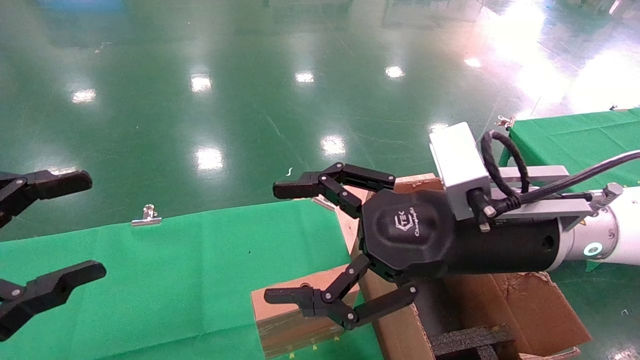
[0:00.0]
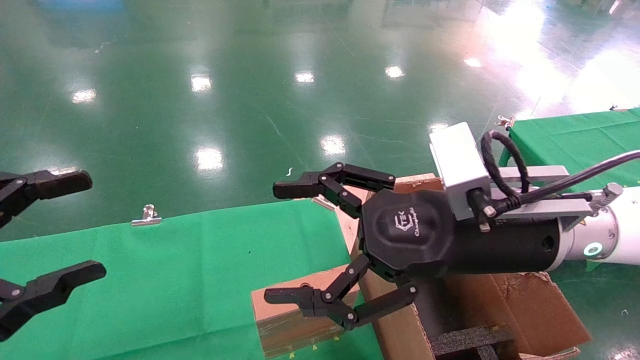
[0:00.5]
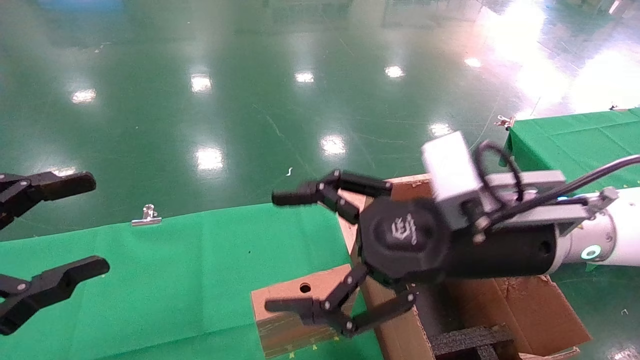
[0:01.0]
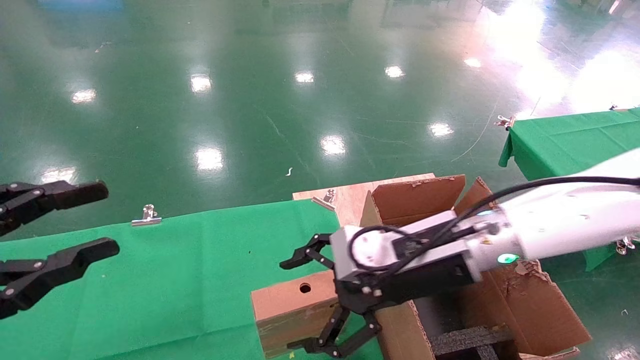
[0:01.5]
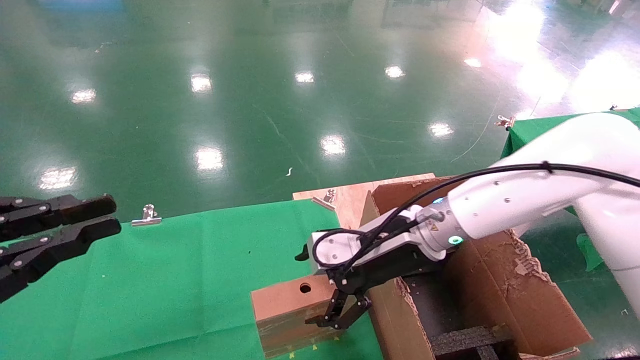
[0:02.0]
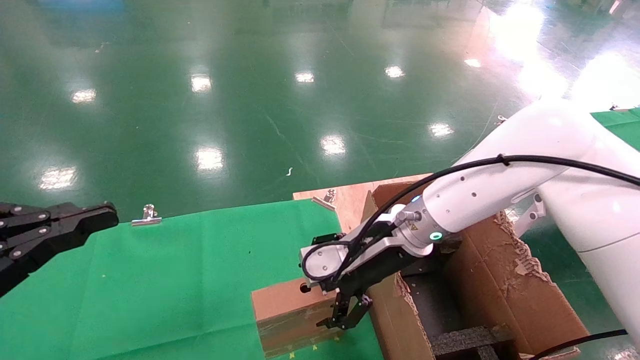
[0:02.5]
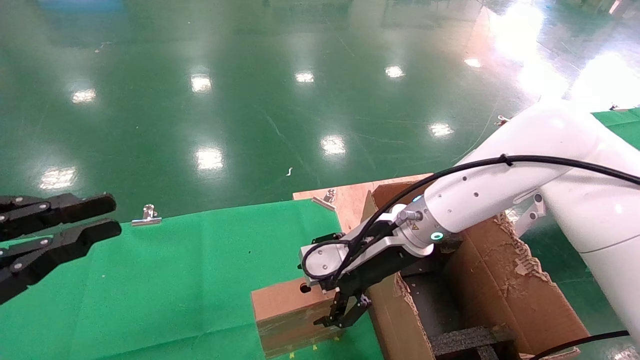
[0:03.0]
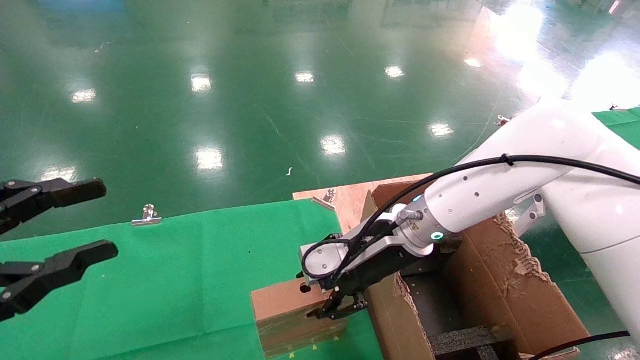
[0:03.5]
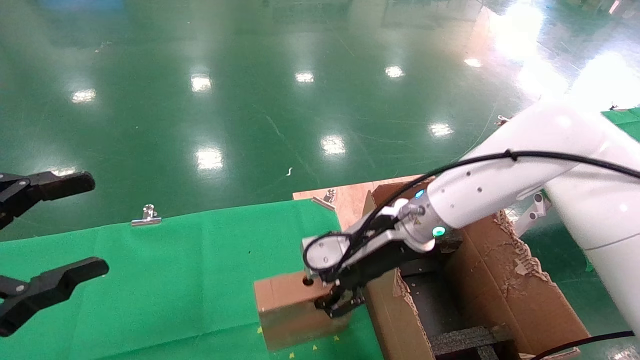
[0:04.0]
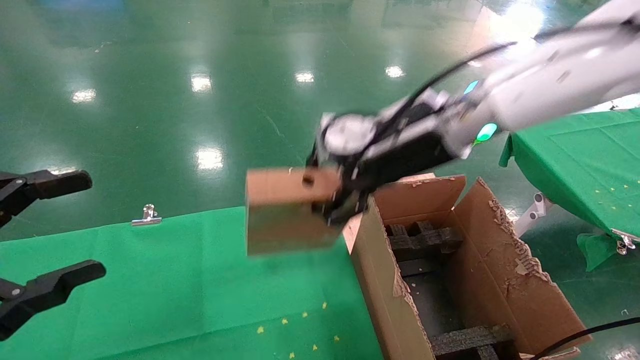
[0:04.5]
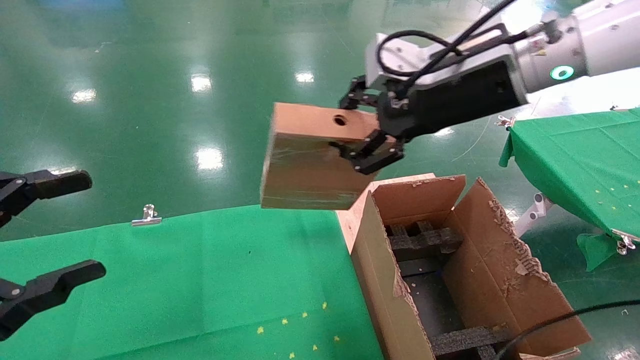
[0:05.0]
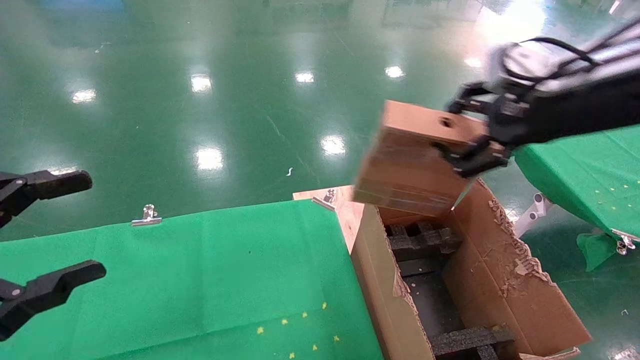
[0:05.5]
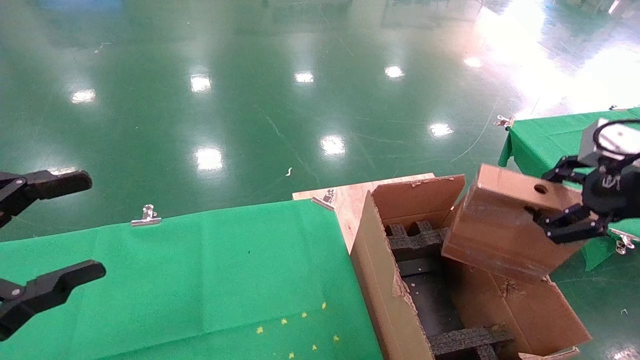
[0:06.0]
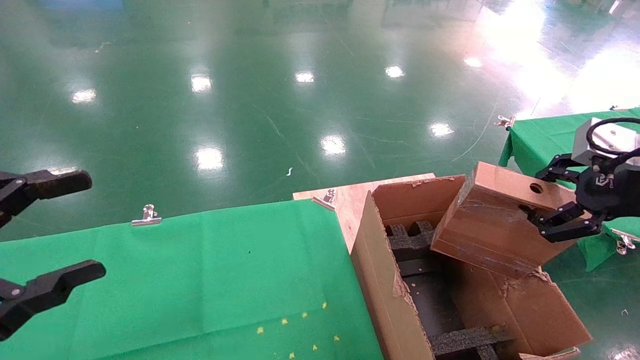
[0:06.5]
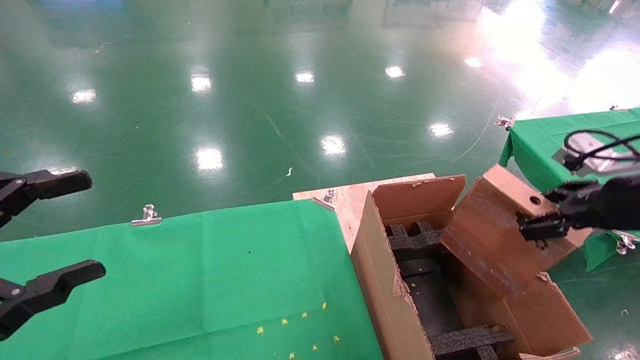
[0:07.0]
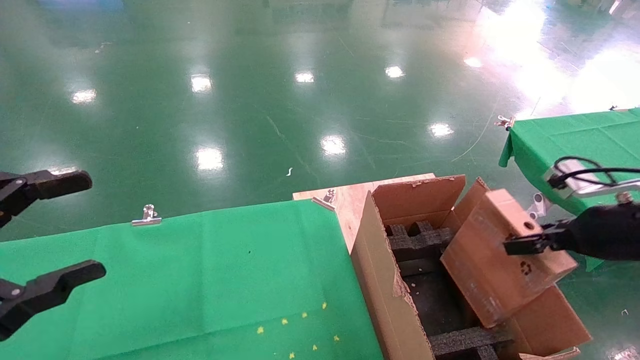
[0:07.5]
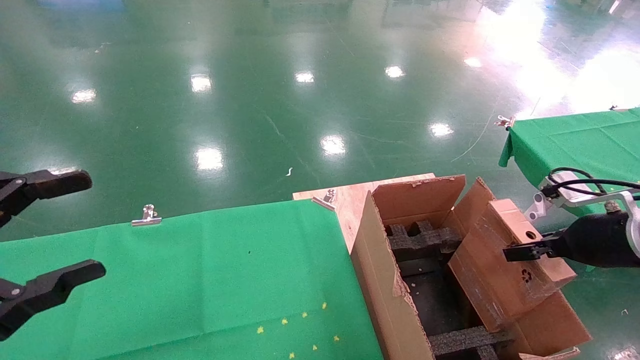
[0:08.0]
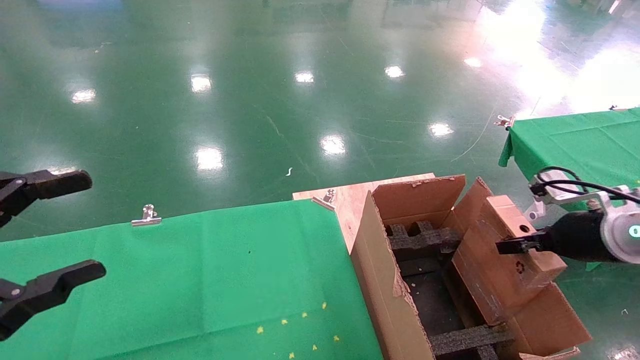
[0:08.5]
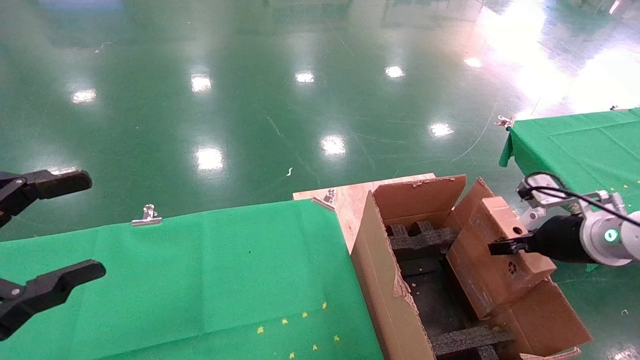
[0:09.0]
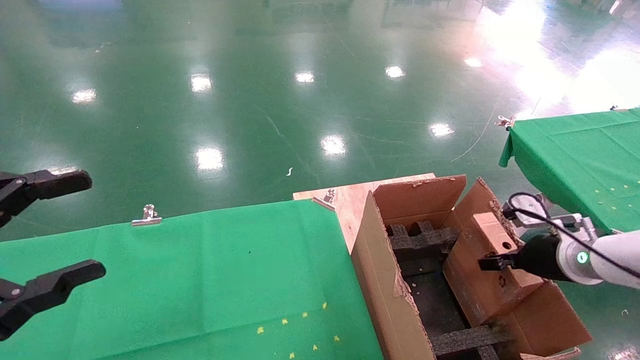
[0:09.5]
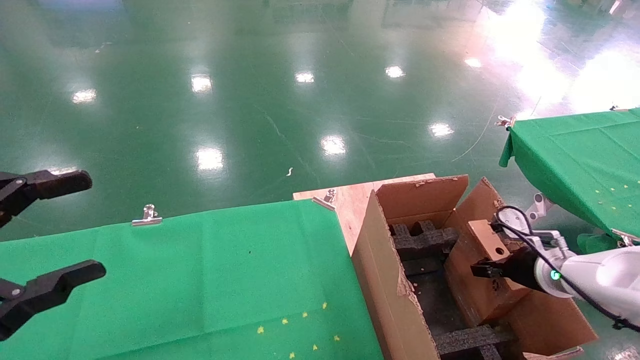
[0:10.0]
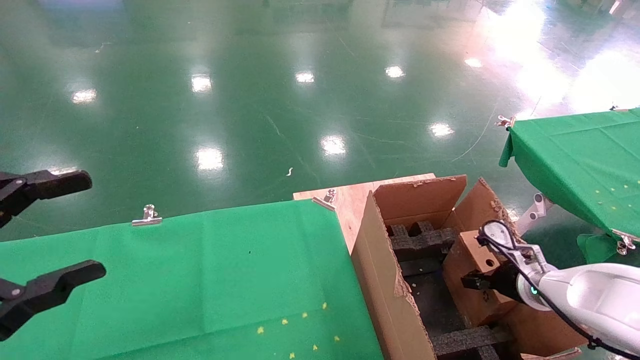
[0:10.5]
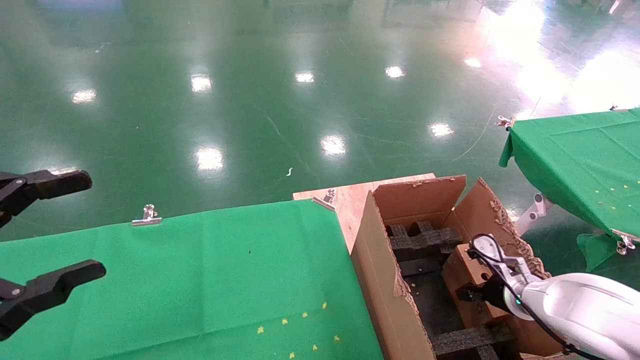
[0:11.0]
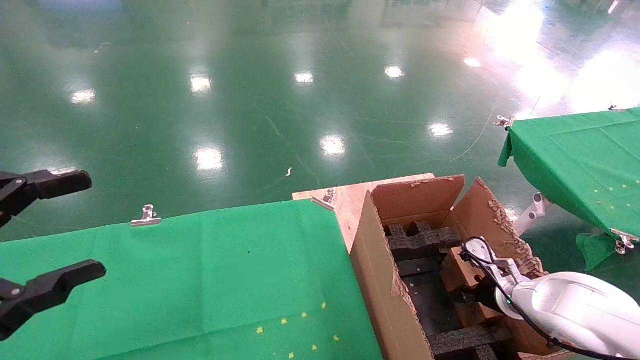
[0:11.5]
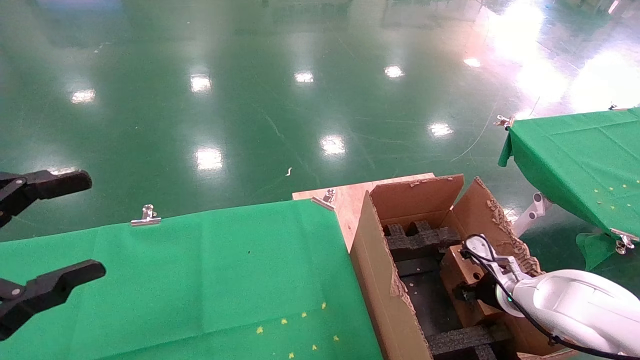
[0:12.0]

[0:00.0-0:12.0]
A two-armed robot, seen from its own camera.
Task of the whole recording: using a robotic arm to pick up a cardboard box and palace it the carton.
Step, 0:01.5 to 0:03.5: Pick up the mouse and the power cord paper box.
0:00.0 to 0:02.0: The left gripper closes its fingers. Meanwhile the right gripper shifts roughly 15 cm forward and downward.
0:02.0 to 0:04.0: The right gripper closes. The left gripper opens.
0:04.0 to 0:06.0: The right gripper shifts roughly 30 cm to the right and backward.
0:06.0 to 0:08.0: The right gripper shifts approximately 15 cm downward and forward.
0:08.0 to 0:10.0: The right gripper moves downward and forward, about 15 cm.
0:10.0 to 0:12.0: The right gripper moves downward, some 5 cm.

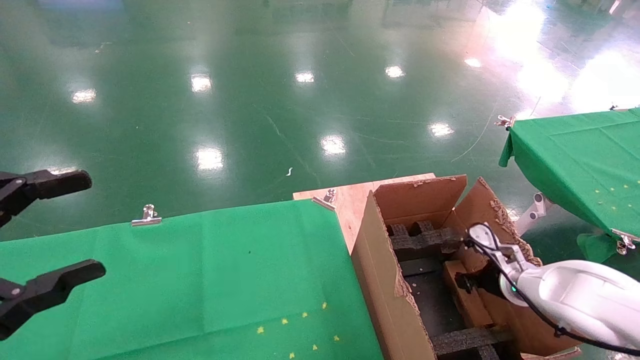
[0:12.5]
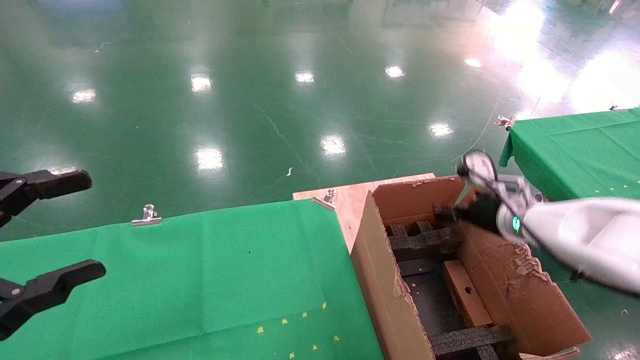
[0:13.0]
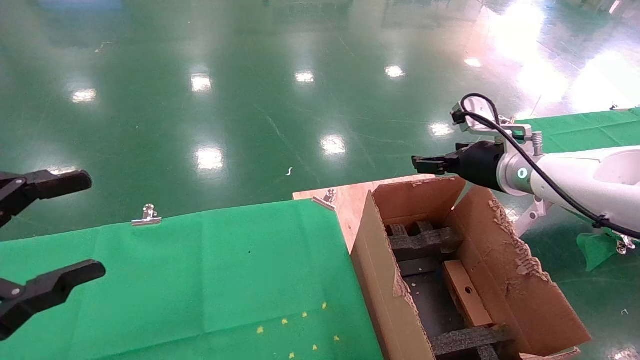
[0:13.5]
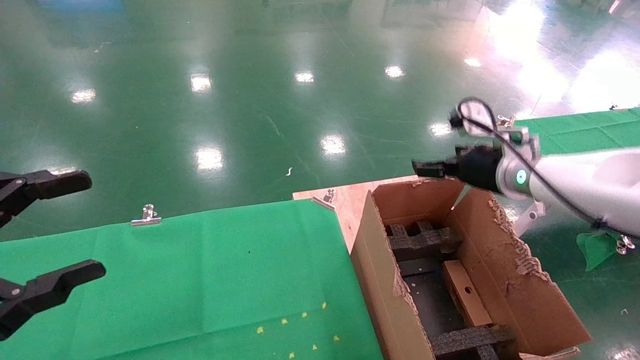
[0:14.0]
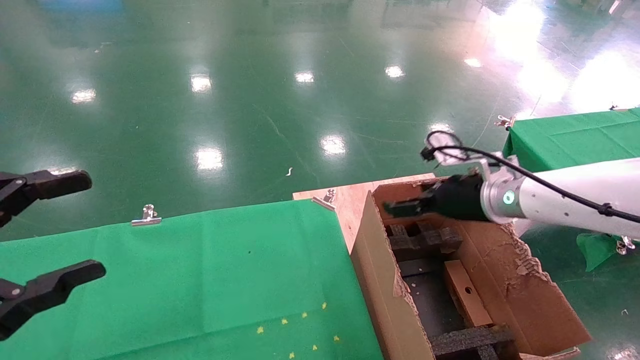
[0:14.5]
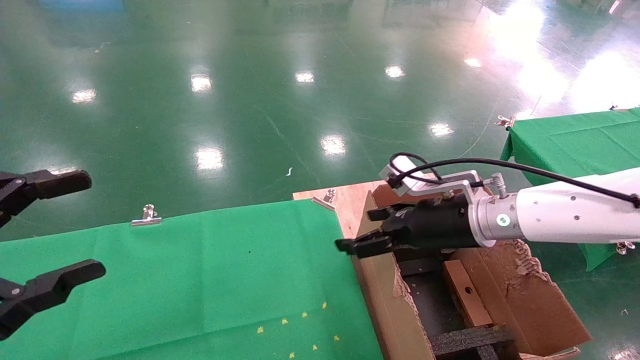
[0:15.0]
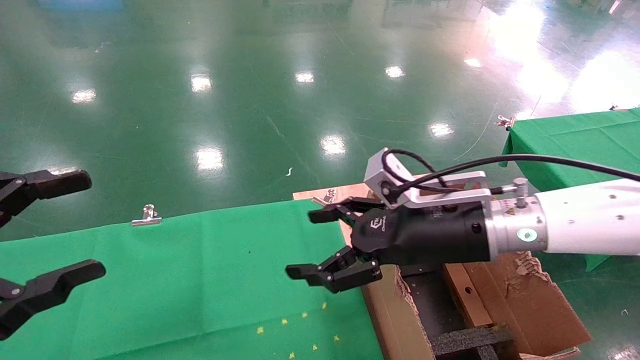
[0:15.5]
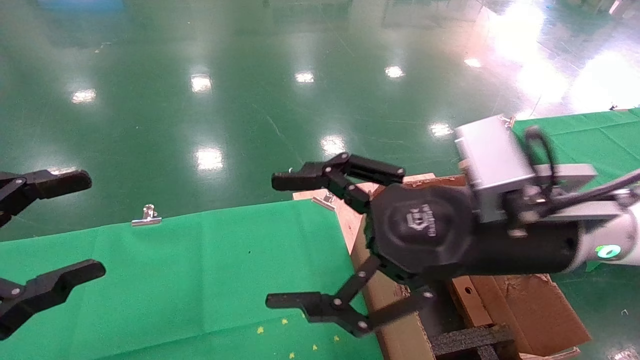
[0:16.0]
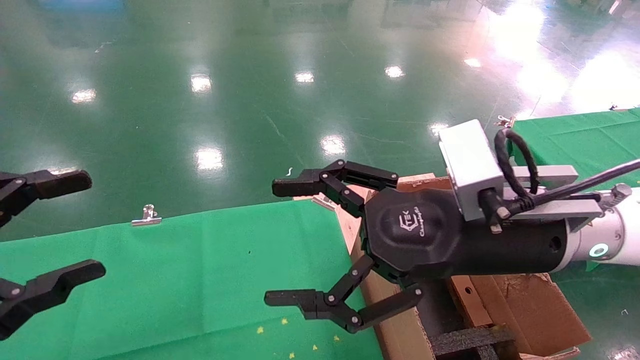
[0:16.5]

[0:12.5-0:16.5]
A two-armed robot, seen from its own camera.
Task of the whole recording: using a robotic arm to pick up a cardboard box and palace it the carton.
0:12.5 to 0:14.5: The right gripper is displaced upward and to the left by roughly 20 cm, and opens.
0:14.5 to 0:16.5: The right gripper moves backward and to the left, about 20 cm.

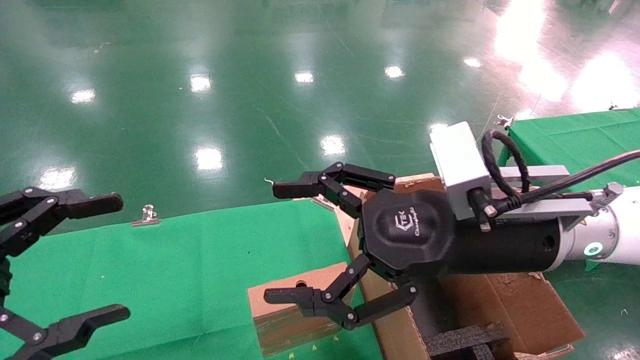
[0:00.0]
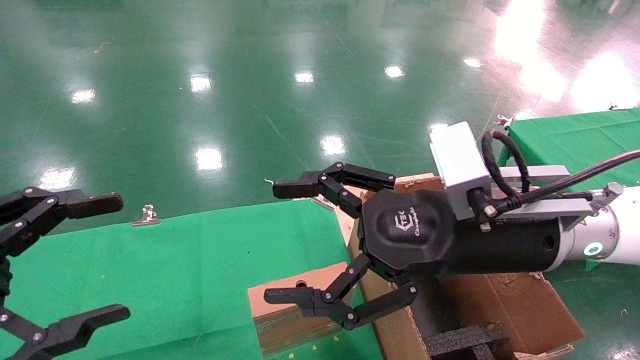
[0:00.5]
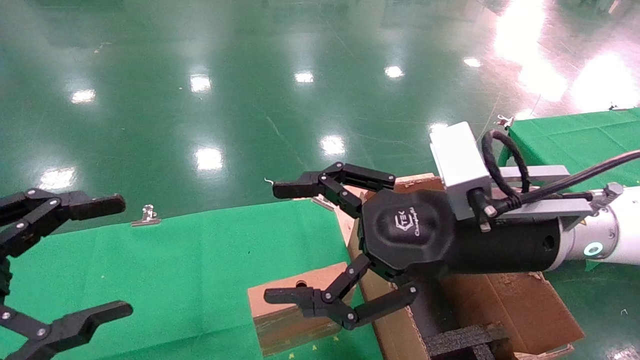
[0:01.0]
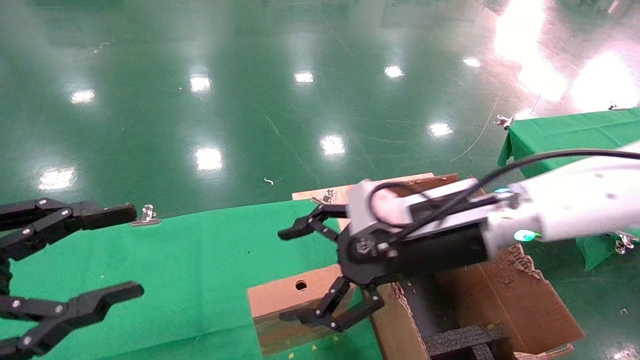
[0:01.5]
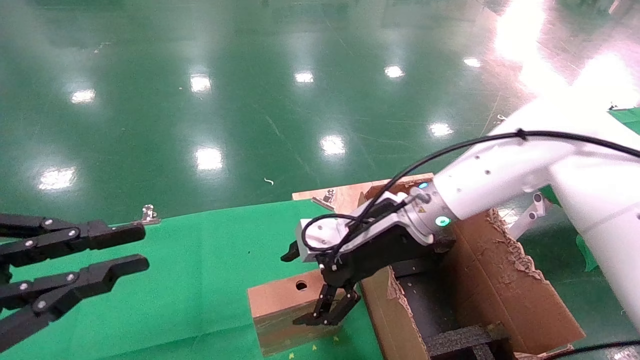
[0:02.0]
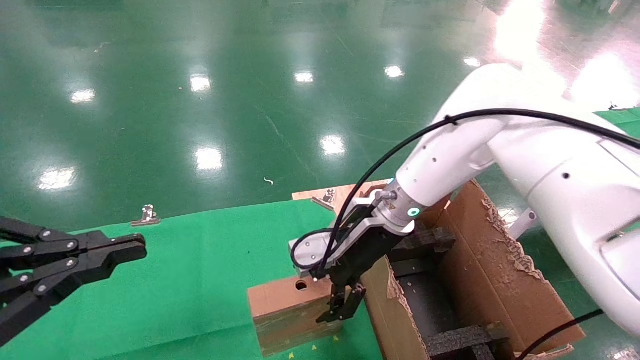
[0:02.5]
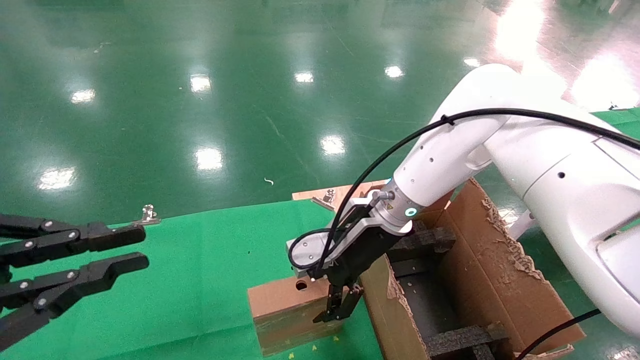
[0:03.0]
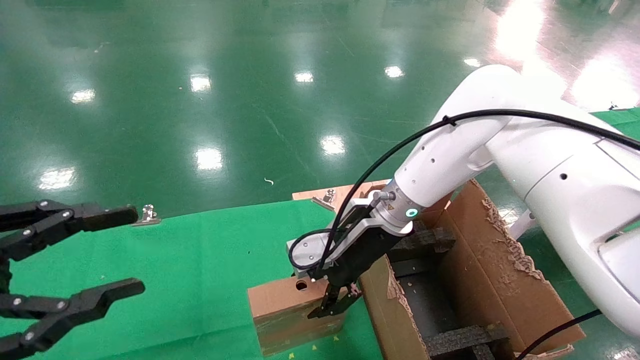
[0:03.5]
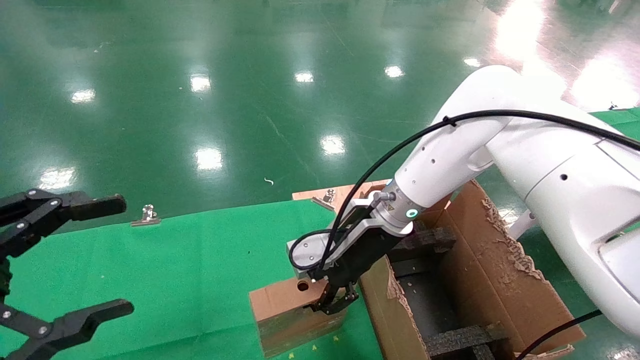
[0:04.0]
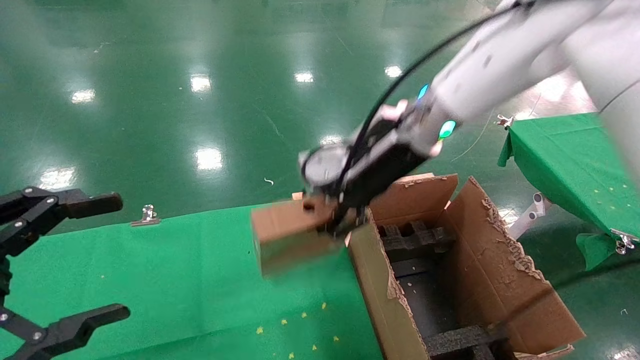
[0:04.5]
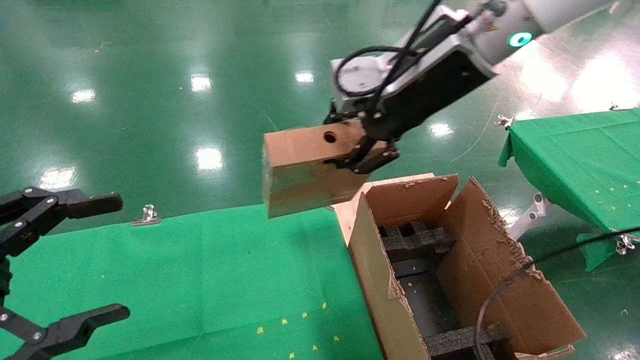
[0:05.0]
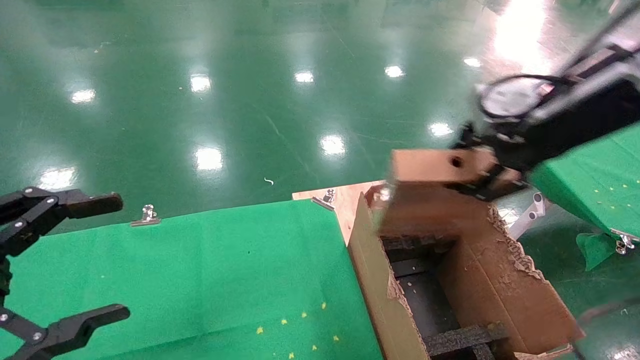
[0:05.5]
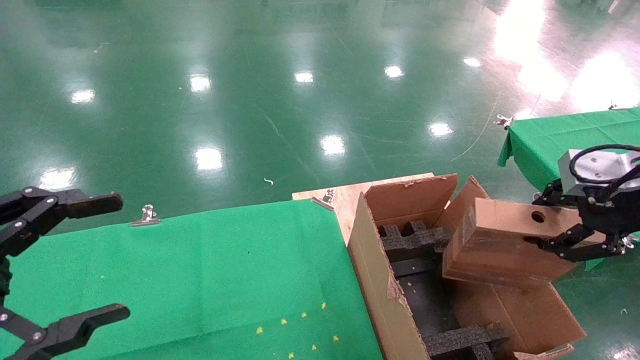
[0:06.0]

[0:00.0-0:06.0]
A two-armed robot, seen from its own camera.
Task of the whole recording: using a robotic arm to pick up a cardboard box and palace it the carton.
Step, 0:01.5 to 0:03.5: Pick up the mouse and the power cord paper box.
0:00.0 to 0:02.0: The right gripper heads forward and downward, covering about 15 cm, while the left gripper closes its fingers.
0:02.0 to 0:04.0: The left gripper opens. The right gripper closes its fingers.
0:04.0 to 0:06.0: The right gripper moves to the right, backward and upward, roughly 35 cm.
